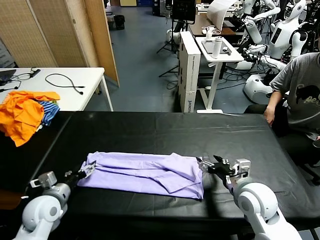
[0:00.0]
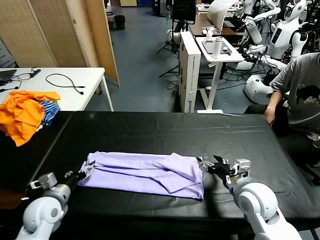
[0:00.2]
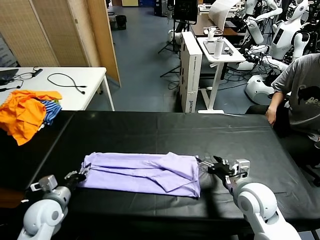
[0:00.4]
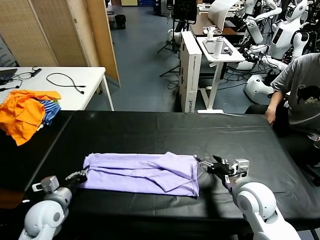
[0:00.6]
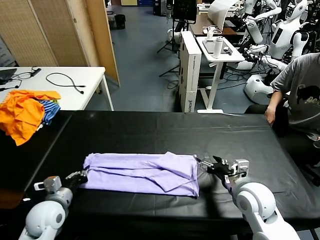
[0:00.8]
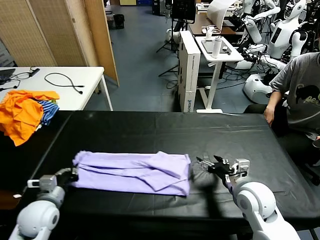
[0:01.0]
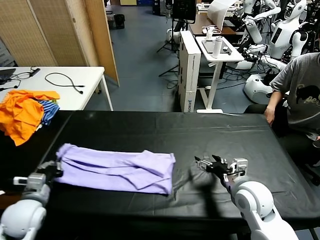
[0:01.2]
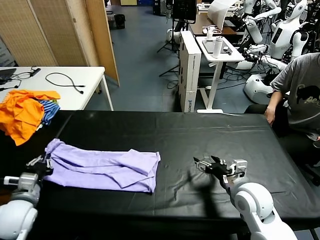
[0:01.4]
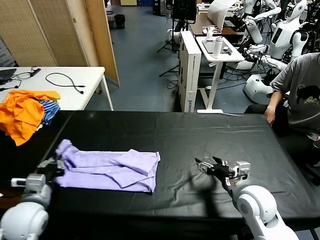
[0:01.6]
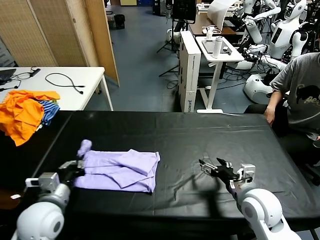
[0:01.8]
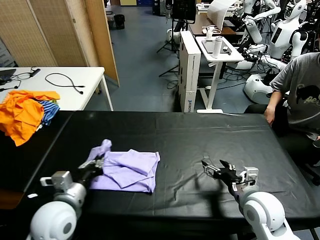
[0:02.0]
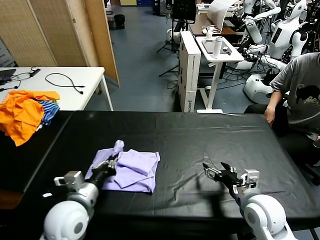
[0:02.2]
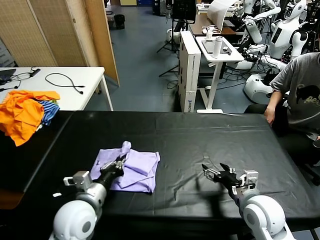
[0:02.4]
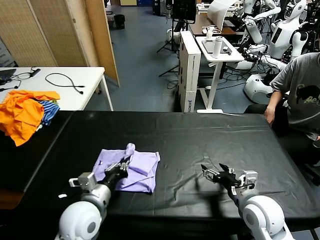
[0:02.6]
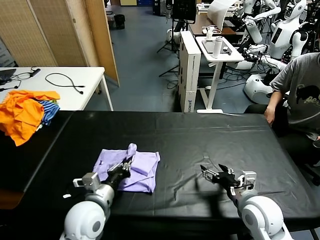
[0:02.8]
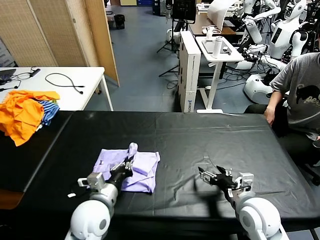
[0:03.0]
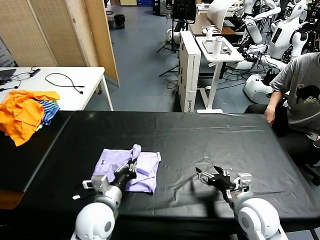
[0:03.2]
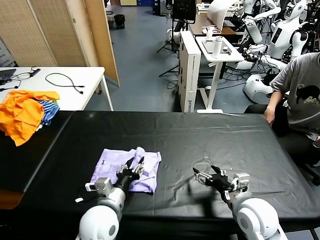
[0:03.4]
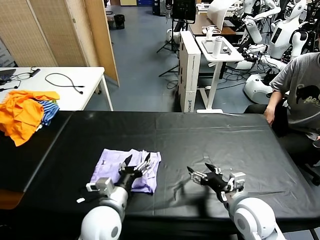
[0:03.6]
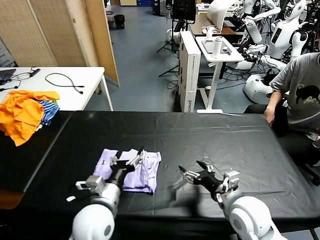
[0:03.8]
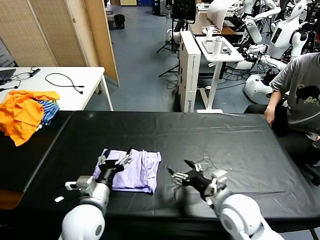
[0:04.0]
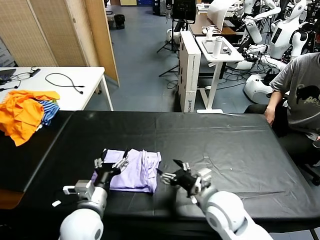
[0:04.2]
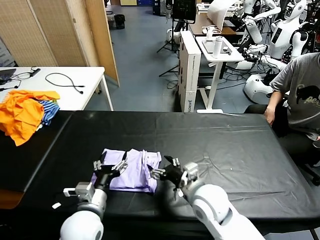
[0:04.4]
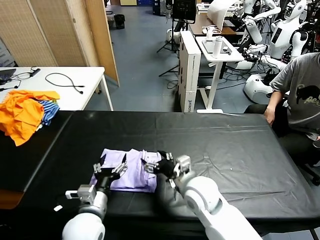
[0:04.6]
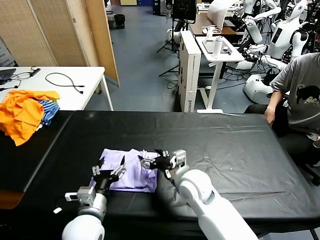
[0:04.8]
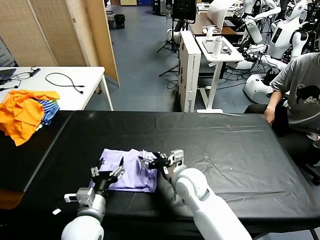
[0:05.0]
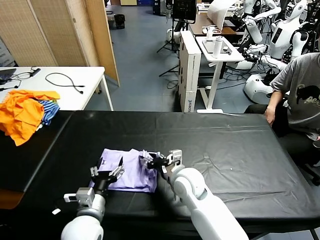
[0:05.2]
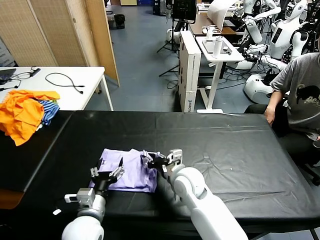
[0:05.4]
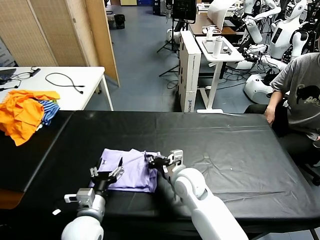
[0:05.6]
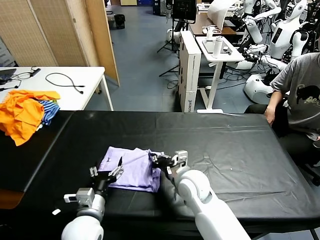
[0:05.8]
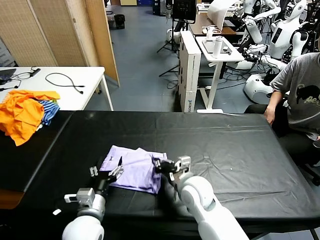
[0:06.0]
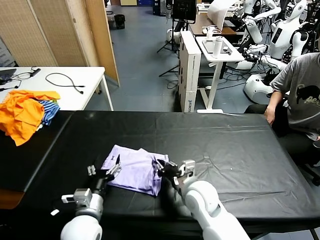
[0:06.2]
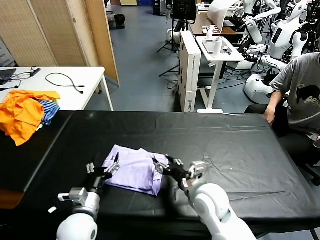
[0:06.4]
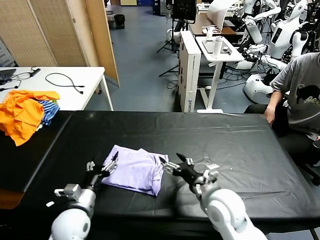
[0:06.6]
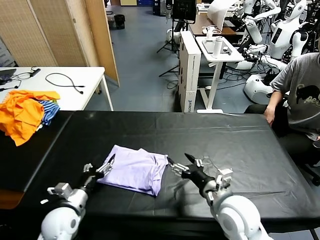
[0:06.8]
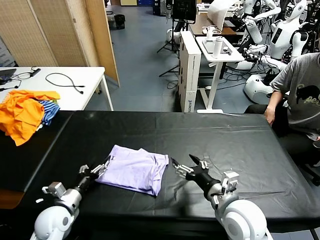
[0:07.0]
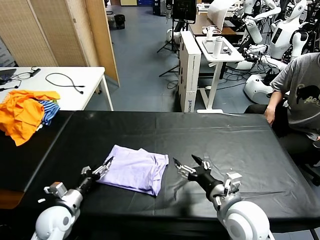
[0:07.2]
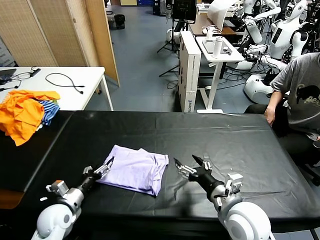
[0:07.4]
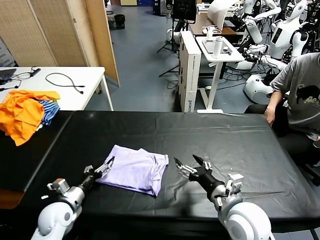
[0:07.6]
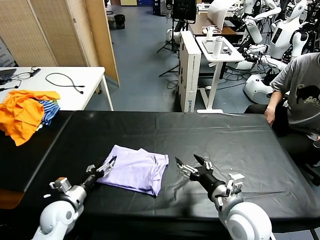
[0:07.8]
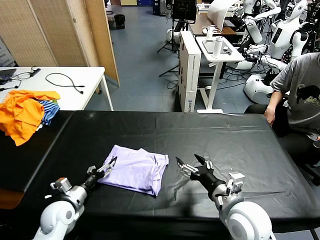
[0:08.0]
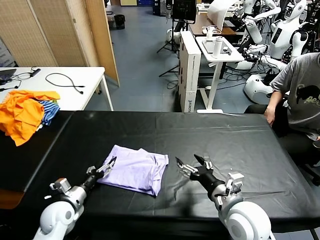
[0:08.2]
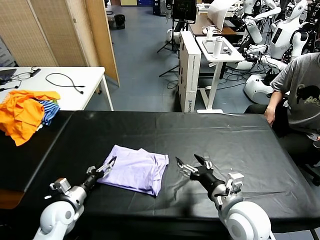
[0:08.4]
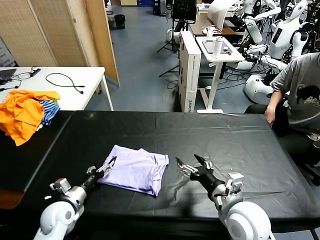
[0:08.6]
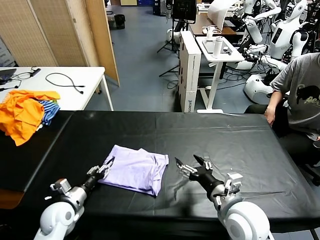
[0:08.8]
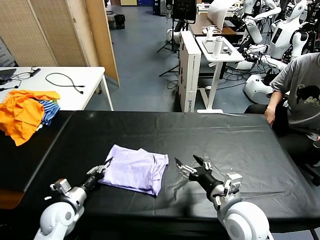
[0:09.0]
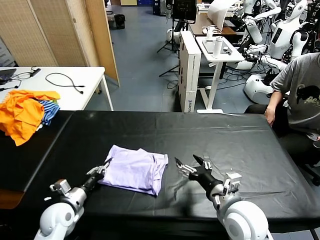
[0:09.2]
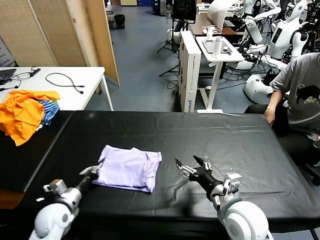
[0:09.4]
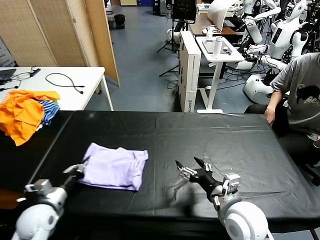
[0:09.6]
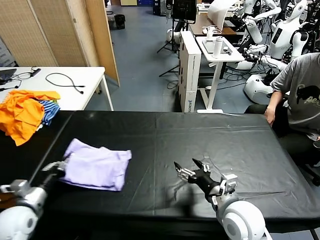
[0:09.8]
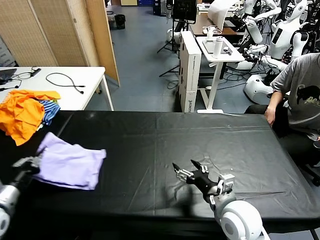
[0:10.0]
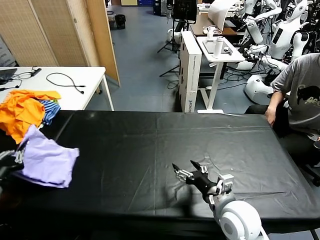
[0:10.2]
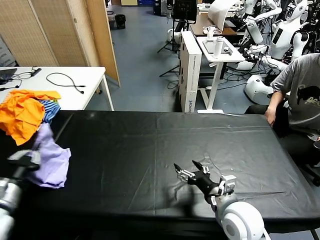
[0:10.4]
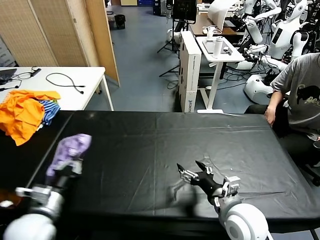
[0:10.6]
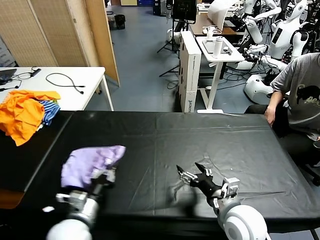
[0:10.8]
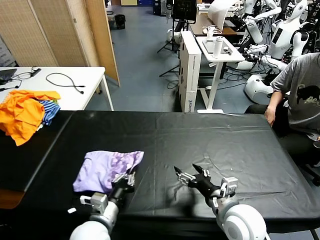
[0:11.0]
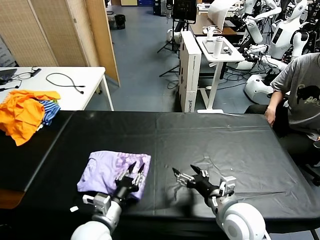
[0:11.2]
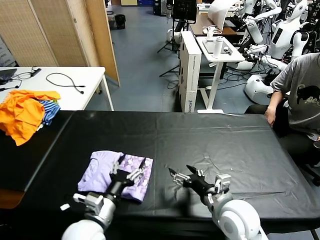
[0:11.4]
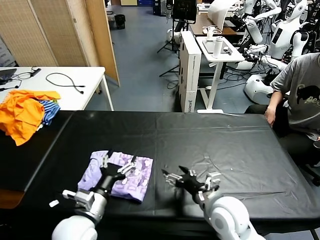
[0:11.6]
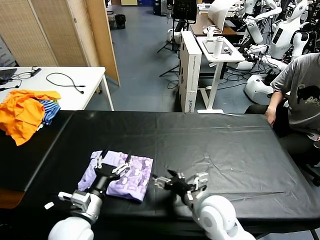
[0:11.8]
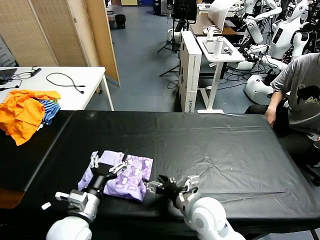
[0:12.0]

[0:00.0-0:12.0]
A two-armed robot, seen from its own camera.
Task of the whole recording: fold and organize the clothes.
Step, 0:00.8 to 0:06.6: use the left gripper to drag the left edge of the fabric to the left and folds it over the right edge.
Step, 0:06.8 to 0:11.6: Flip the folded clothes over with left gripper.
0:00.0 to 0:01.6: The left gripper ends up approximately 5 cm from where it was, and closes up.
0:01.6 to 0:03.0: The left gripper travels to the right by approximately 20 cm.
0:03.0 to 0:04.4: The left gripper opens; the right gripper moves to the left, approximately 15 cm.
0:04.4 to 0:06.0: The right gripper shifts by approximately 5 cm, and closes.
0:06.0 to 0:07.6: The left gripper is displaced to the left, downward and forward by roughly 15 cm. The right gripper goes approximately 15 cm to the right, backward and upward, and opens up.
0:07.6 to 0:09.0: The left gripper closes its fingers.
0:09.0 to 0:10.4: The left gripper travels upward, to the left and backward by approximately 20 cm.
0:10.4 to 0:12.0: The right gripper moves to the left, roughly 5 cm; the left gripper is displaced to the right by about 20 cm, and opens up.

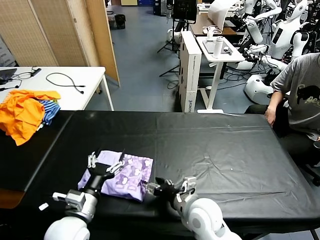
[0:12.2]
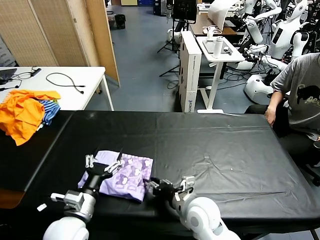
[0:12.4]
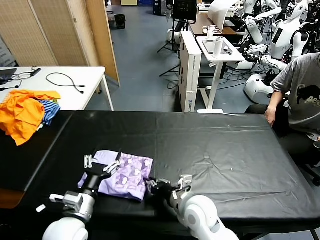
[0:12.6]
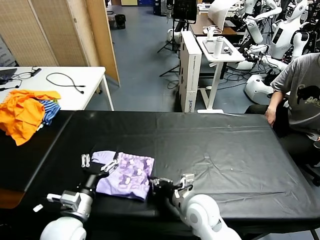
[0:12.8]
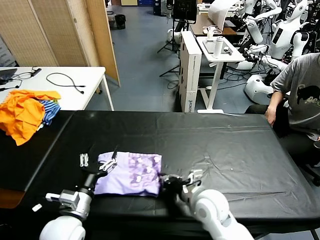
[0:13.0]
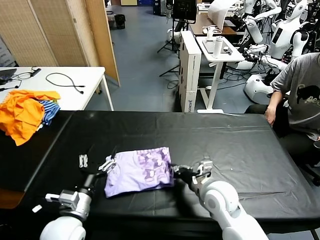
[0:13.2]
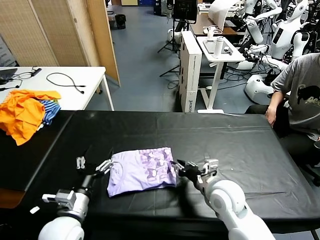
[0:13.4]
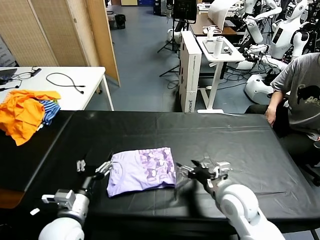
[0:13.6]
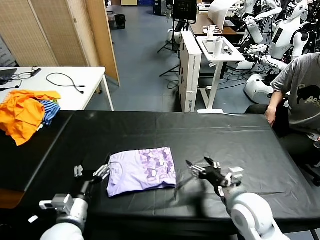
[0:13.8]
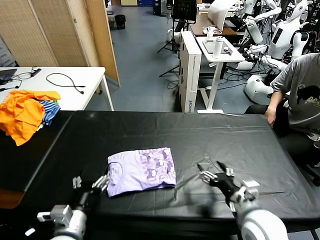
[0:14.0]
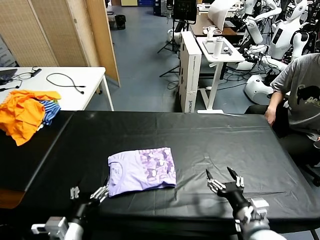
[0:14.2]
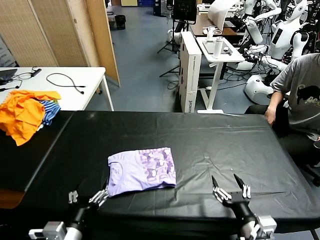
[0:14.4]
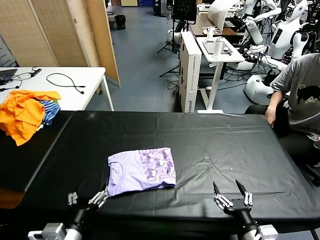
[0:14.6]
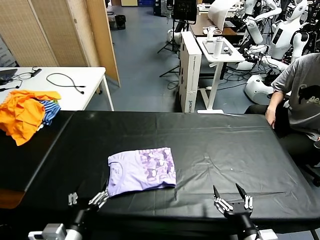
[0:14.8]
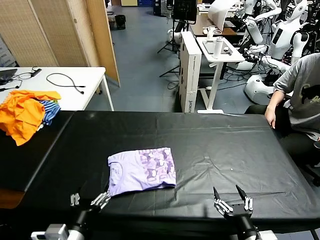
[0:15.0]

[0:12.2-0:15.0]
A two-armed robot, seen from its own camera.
Task of the whole recording: fold and organize the clothes.
Step, 0:12.2 to 0:13.4: Drag the clothes to the center of the table.
0:12.2 to 0:13.6: The right gripper is displaced to the right by roughly 10 cm, and closes and opens again.
0:13.6 to 0:15.0: The left gripper travels backward by roughly 10 cm. Meanwhile the right gripper shifts about 20 cm backward.

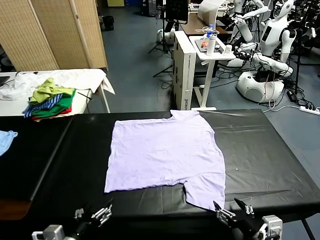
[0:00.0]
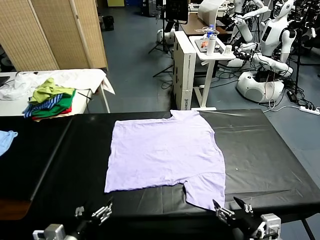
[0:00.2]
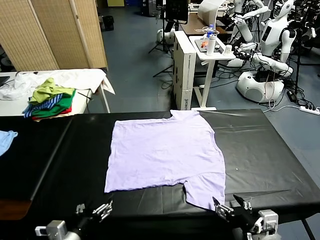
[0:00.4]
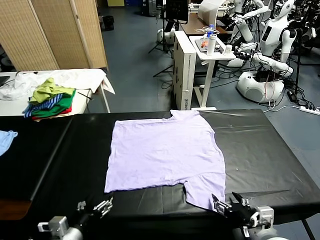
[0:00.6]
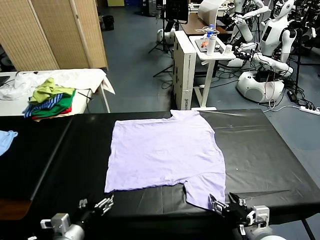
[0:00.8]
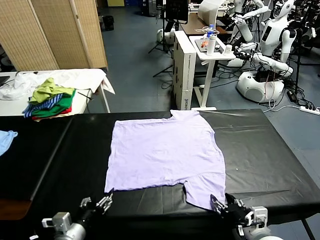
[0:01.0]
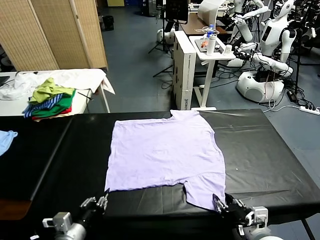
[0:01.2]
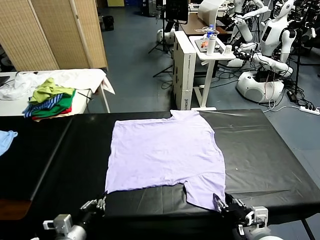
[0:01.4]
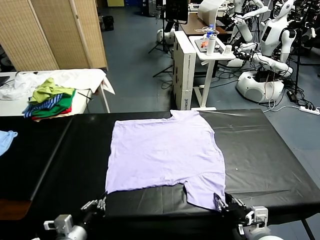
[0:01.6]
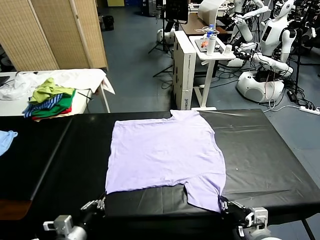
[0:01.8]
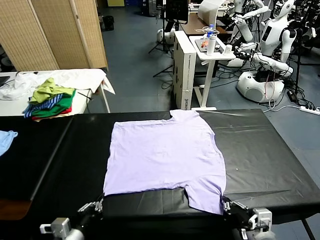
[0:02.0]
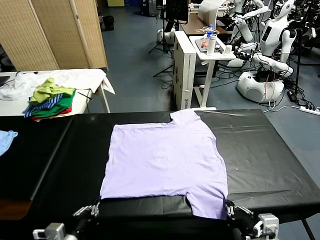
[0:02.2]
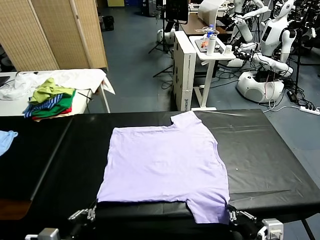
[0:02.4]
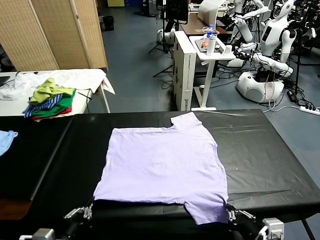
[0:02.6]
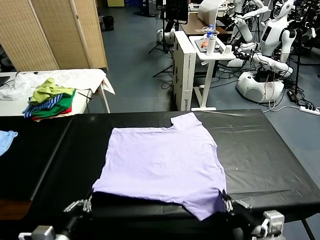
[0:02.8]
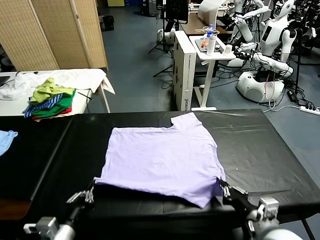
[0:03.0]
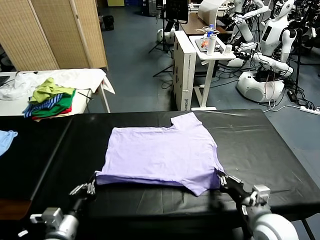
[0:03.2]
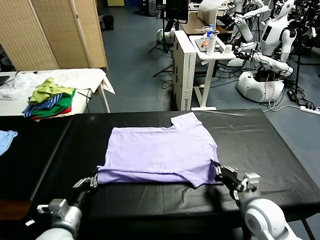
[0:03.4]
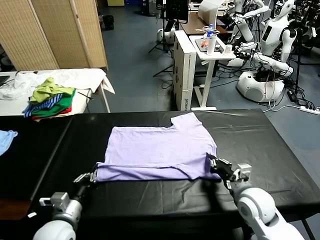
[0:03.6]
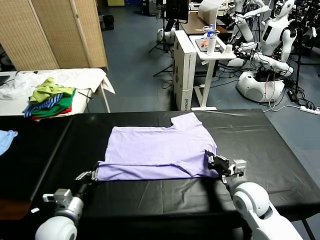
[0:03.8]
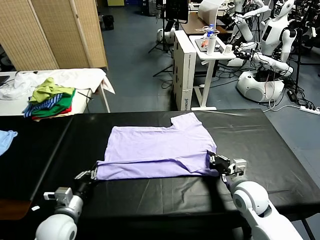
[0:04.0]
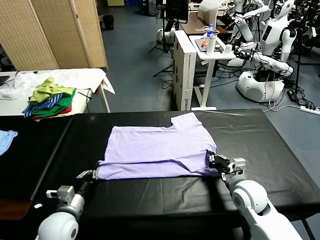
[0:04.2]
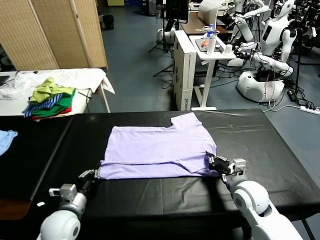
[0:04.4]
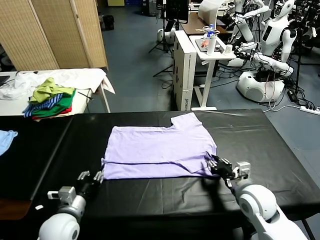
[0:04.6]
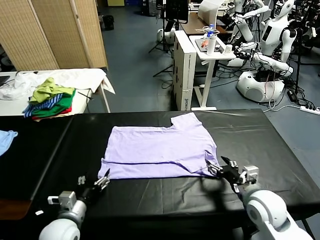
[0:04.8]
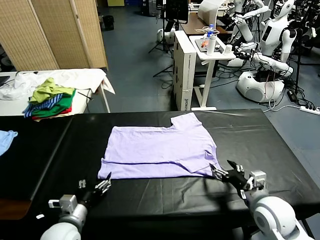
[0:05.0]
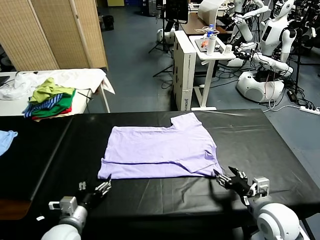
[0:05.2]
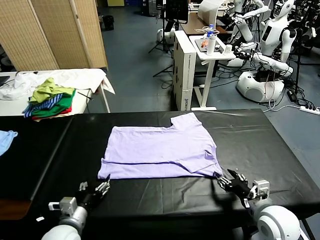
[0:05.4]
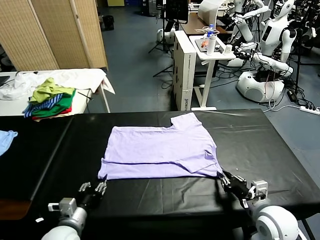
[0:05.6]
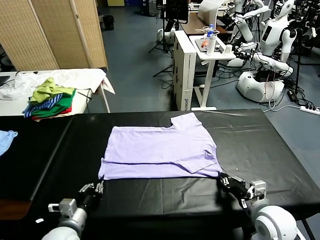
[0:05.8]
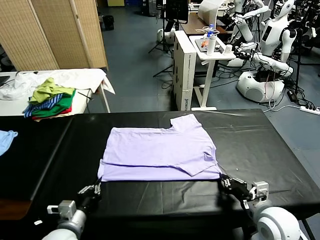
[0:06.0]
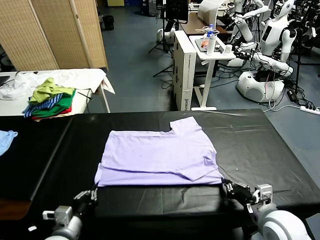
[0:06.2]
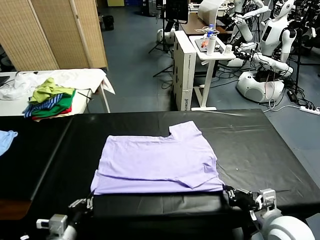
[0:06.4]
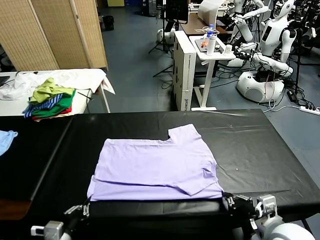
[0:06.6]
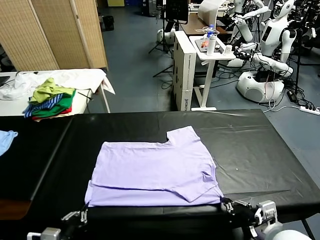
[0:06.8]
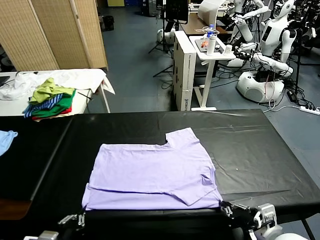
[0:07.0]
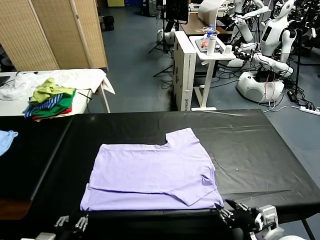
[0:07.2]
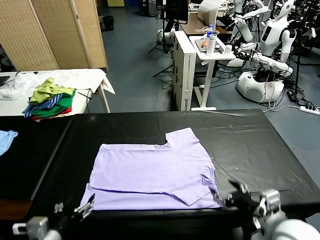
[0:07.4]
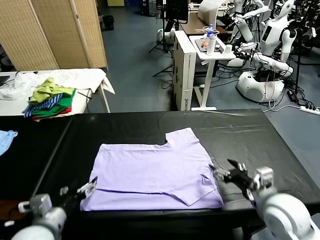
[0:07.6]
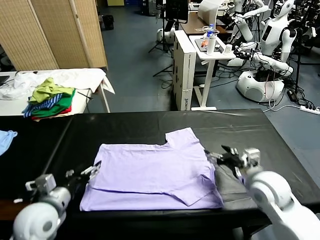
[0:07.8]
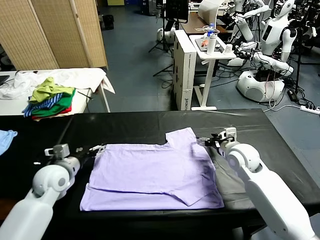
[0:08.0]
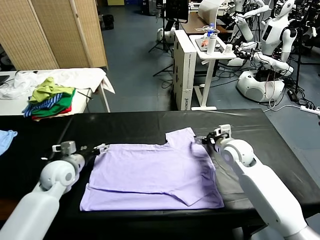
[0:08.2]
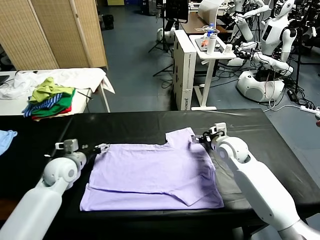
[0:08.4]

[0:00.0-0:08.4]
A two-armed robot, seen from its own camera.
Task of the whole recording: fold and organize the clothes.
Step, 0:00.0 to 0:01.8: use both grippers simultaneously to clamp the lower edge of the clothing fabric.
Step, 0:02.0 to 0:04.6: use both grippers to drag the lower edge of the fabric forward and fold it over the upper edge.
Step, 0:05.0 to 0:07.2: Drag the clothes downward with both gripper.
0:01.4 to 0:02.8: The right gripper goes approximately 5 cm forward, while the left gripper moves some 5 cm.
0:02.8 to 0:04.2: The right gripper goes roughly 10 cm forward, and opens its fingers, while the left gripper heads forward and downward, covering approximately 15 cm.
0:04.2 to 0:05.6: The right gripper heads backward, covering approximately 5 cm, and closes. The left gripper opens and closes again.
0:05.6 to 0:07.0: Both grippers travel together backward and upward, about 10 cm. The left gripper opens up. The right gripper opens its fingers.
0:07.0 to 0:08.4: The grippers both shift forward by approximately 30 cm. The left gripper opens its fingers.
